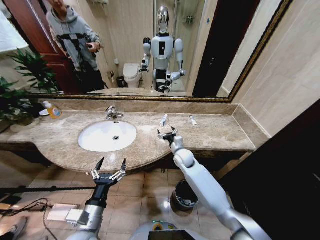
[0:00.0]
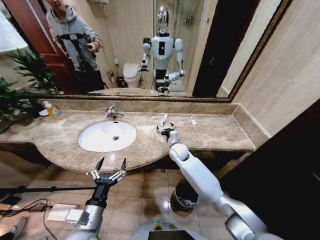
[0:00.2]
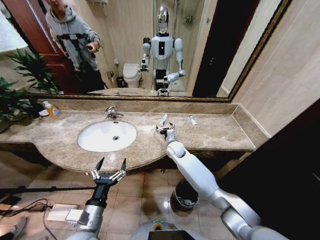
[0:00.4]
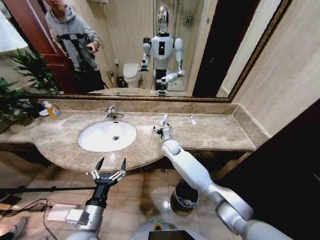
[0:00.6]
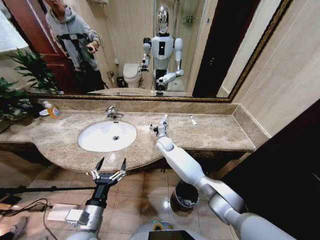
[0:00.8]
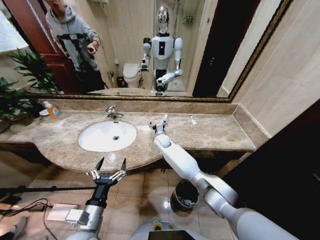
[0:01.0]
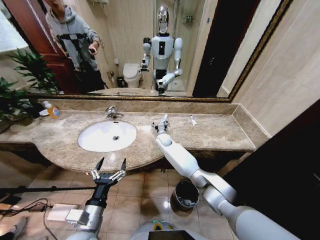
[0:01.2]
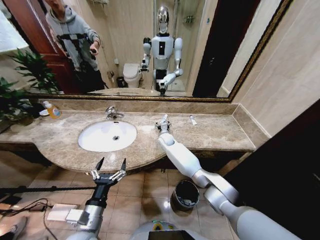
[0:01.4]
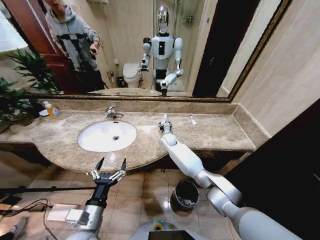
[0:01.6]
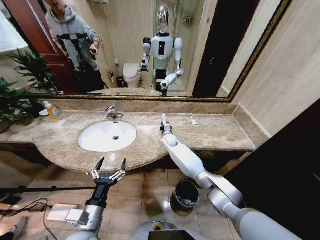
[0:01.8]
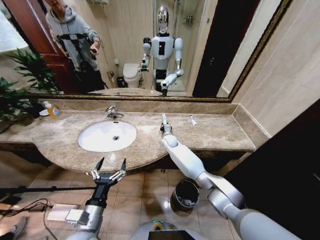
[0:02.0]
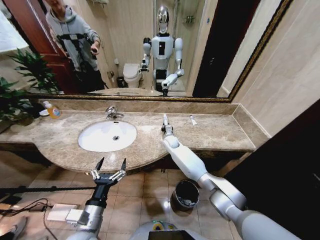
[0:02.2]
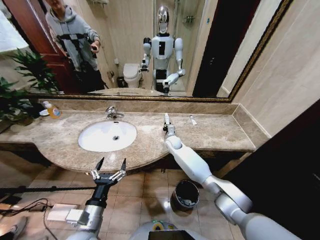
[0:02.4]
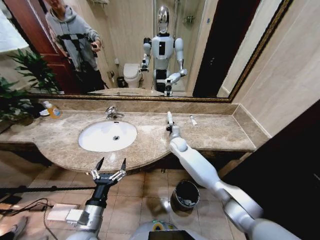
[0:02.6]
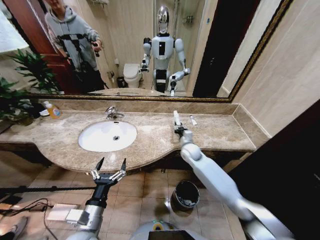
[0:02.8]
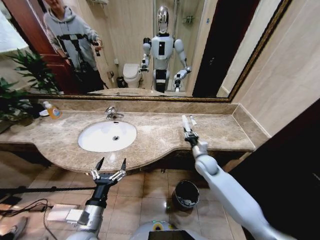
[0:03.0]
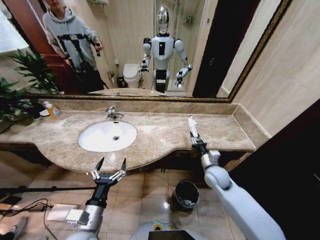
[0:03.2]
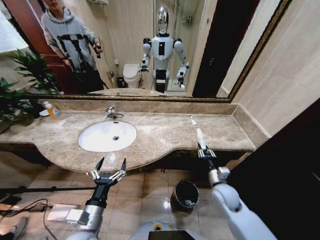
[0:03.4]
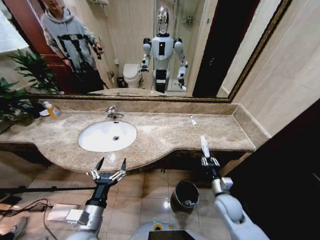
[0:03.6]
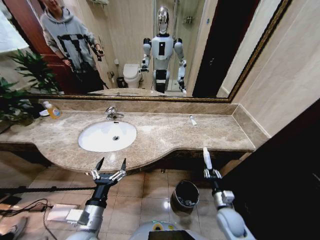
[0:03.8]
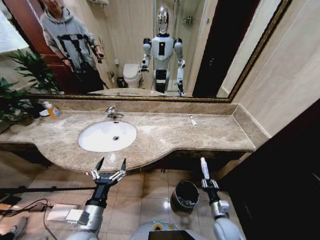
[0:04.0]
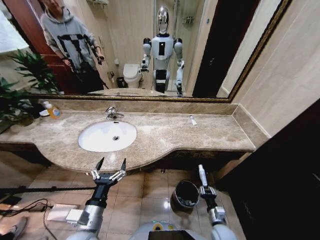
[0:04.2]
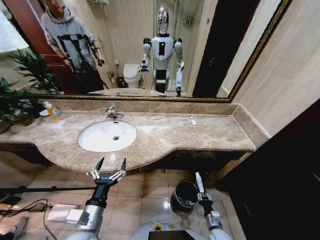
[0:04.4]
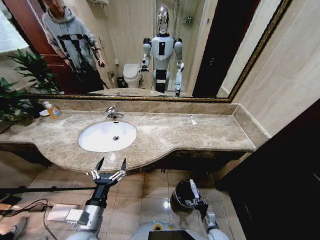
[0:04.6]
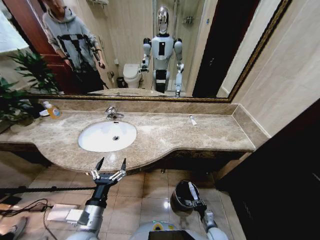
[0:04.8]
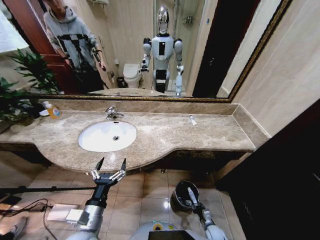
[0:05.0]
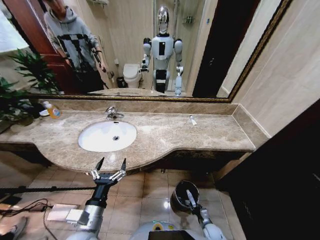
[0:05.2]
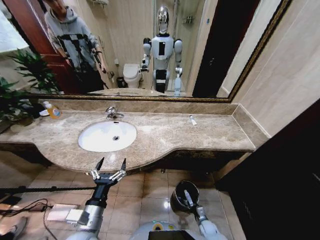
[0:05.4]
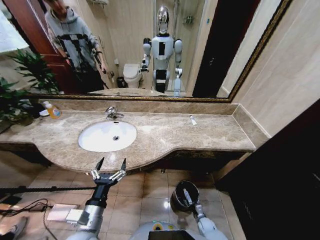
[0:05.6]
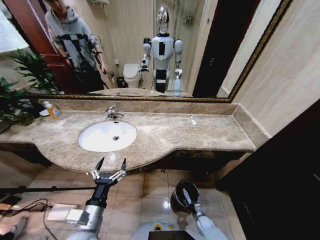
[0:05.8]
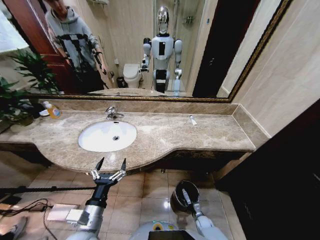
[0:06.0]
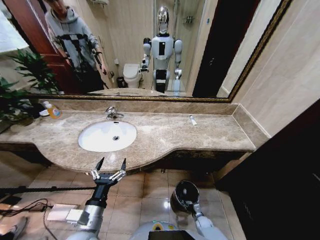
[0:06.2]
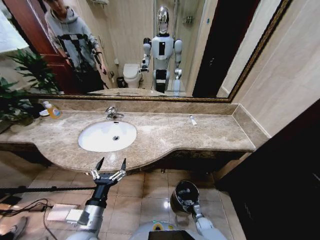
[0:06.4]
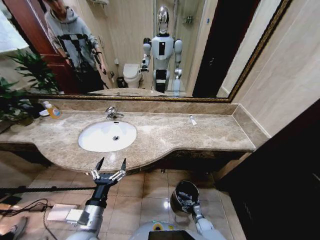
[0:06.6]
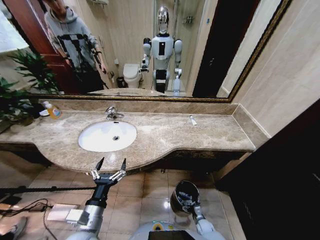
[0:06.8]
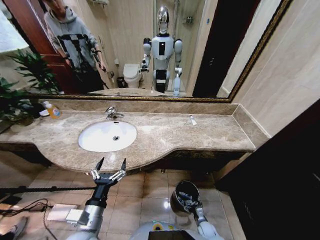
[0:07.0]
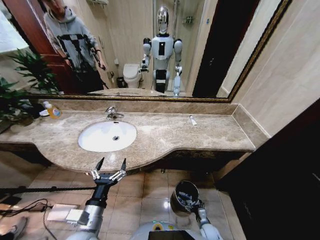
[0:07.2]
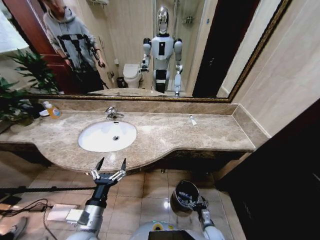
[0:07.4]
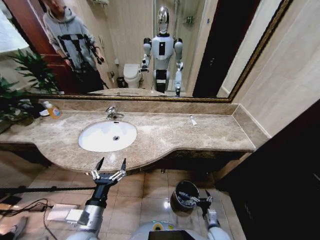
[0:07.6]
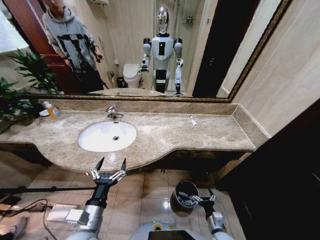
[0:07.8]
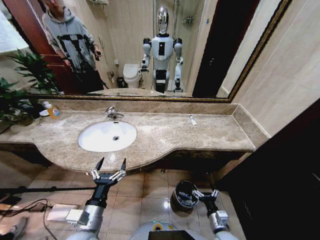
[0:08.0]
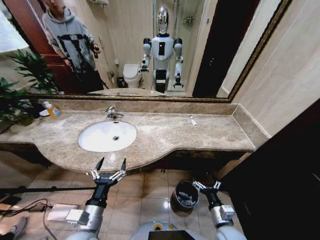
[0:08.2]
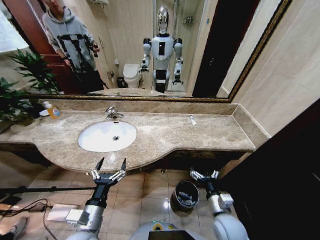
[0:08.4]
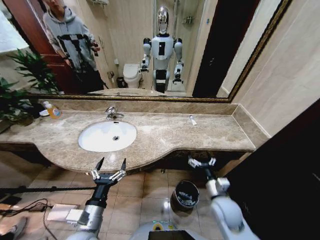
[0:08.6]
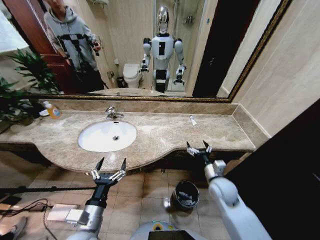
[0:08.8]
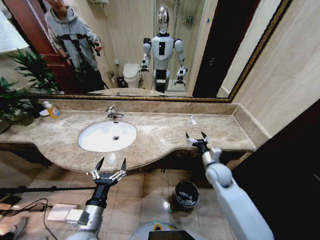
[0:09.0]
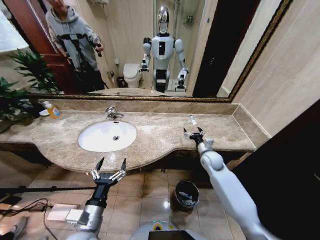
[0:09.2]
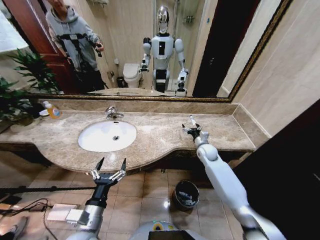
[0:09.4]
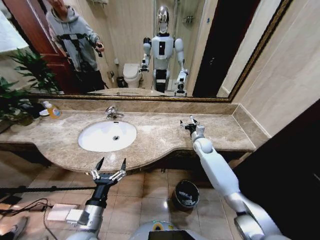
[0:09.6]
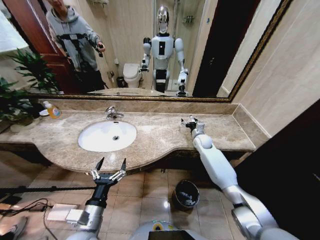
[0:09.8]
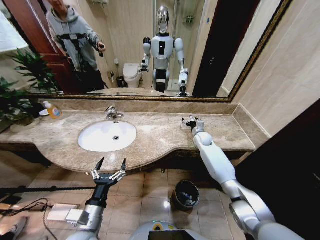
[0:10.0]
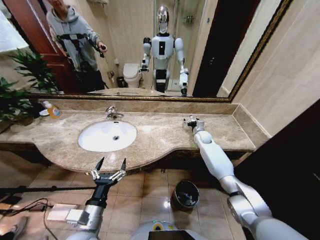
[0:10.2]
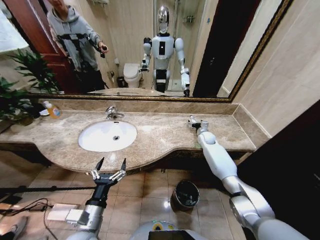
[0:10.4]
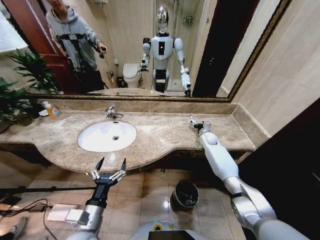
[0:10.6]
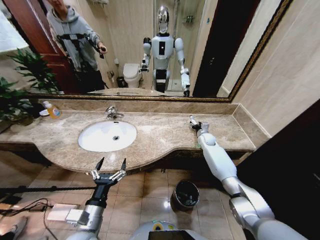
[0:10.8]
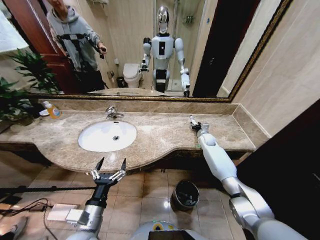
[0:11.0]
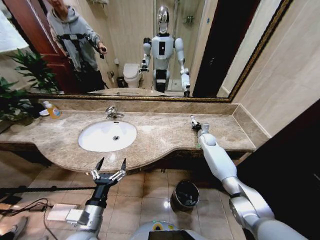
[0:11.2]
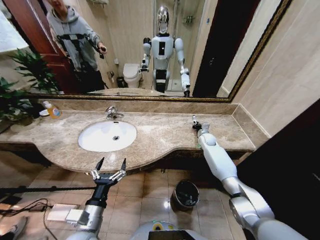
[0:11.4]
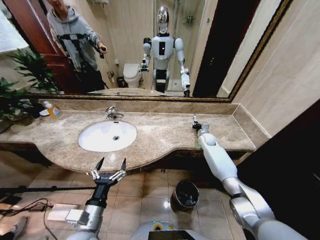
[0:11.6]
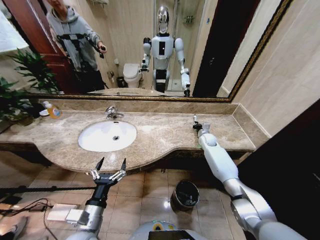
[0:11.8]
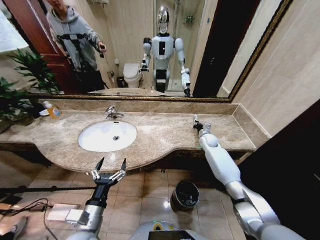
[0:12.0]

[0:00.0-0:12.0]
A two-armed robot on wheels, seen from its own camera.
Task of the whole recording: Pick up the trash from the sink and place it in the trash bin.
0.0 to 1.6 s: The right gripper moves forward and to the left, approximately 15 cm.
1.6 to 3.0 s: The right gripper heads backward and to the right, covering roughly 25 cm, and closes up.
3.0 to 4.4 s: The right gripper shifts some 35 cm downward and backward.
4.4 to 6.0 s: The right gripper moves downward and forward, roughly 15 cm.
6.0 to 7.6 s: The right gripper travels upward and backward by approximately 15 cm, and opens up.
7.6 to 9.0 s: The right gripper goes some 30 cm upward and forward.
9.0 to 10.4 s: The right gripper shifts about 25 cm forward.
10.4 to 12.0 s: The right gripper closes its fingers.

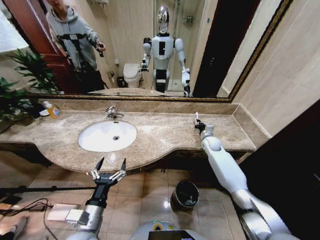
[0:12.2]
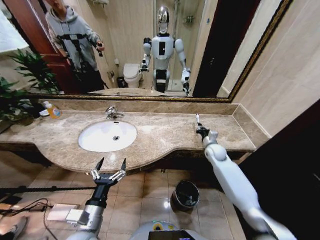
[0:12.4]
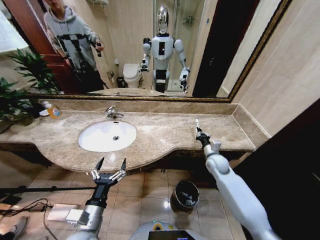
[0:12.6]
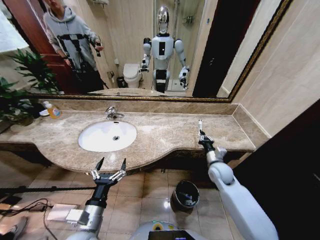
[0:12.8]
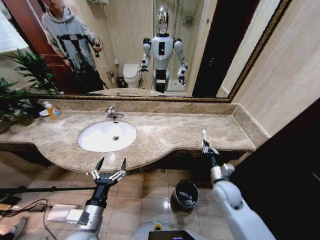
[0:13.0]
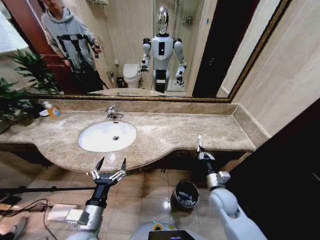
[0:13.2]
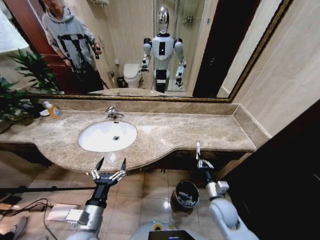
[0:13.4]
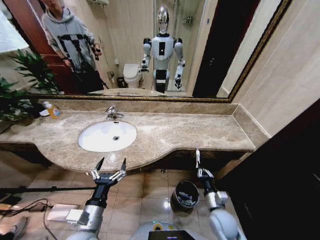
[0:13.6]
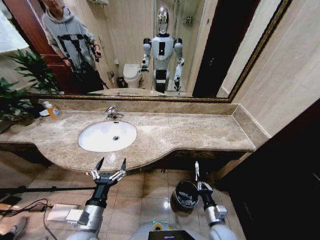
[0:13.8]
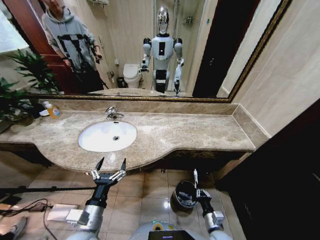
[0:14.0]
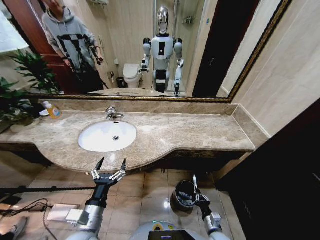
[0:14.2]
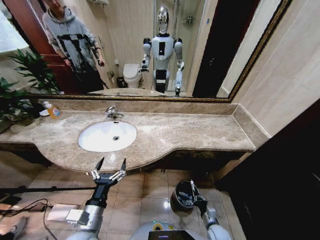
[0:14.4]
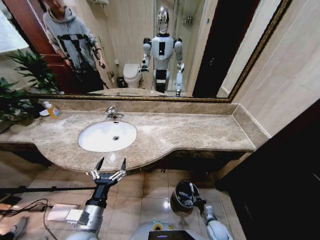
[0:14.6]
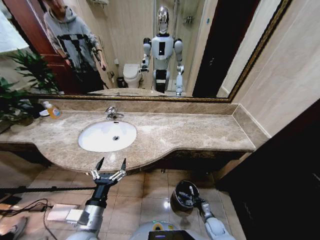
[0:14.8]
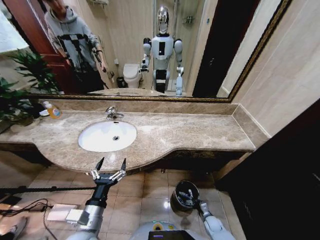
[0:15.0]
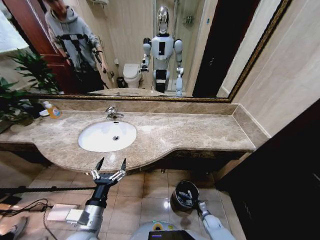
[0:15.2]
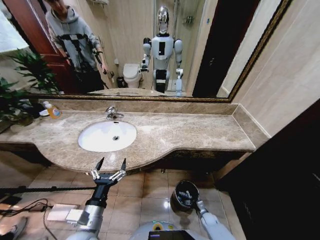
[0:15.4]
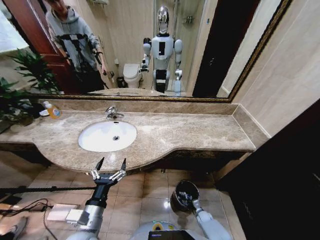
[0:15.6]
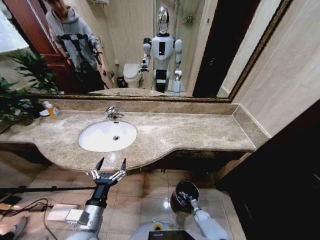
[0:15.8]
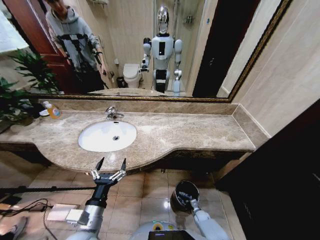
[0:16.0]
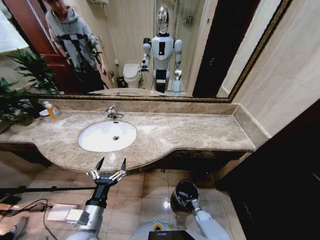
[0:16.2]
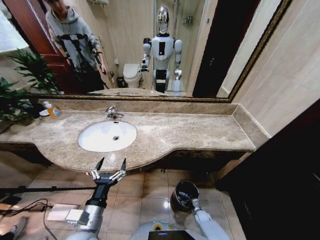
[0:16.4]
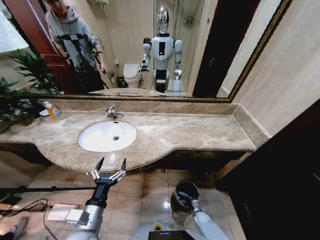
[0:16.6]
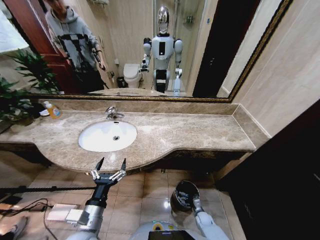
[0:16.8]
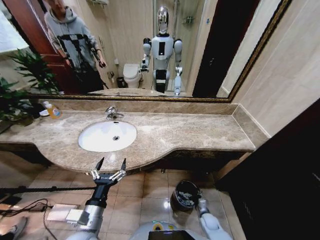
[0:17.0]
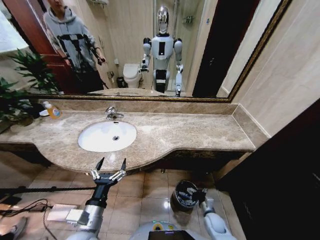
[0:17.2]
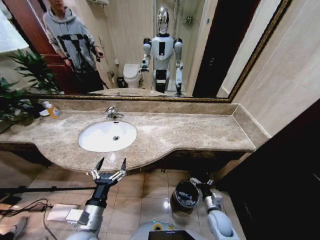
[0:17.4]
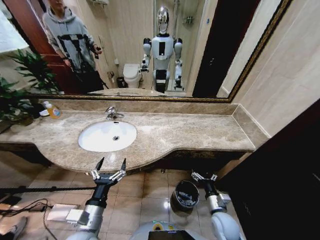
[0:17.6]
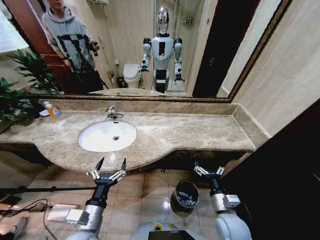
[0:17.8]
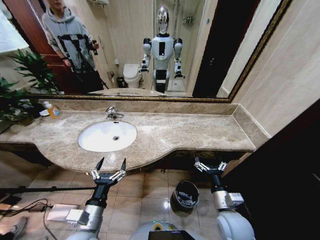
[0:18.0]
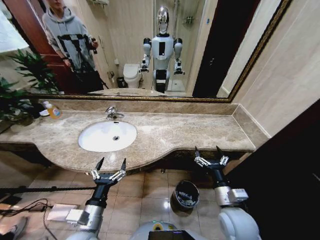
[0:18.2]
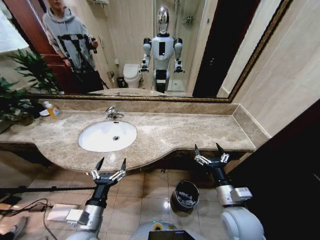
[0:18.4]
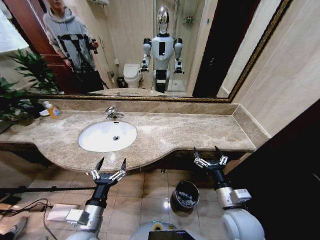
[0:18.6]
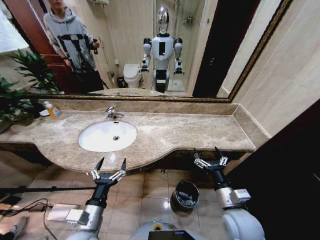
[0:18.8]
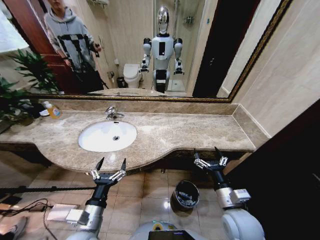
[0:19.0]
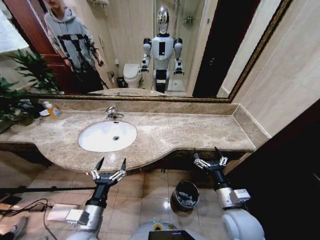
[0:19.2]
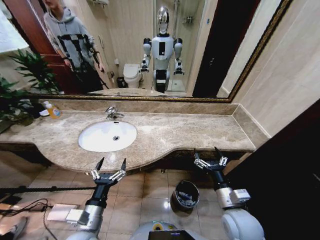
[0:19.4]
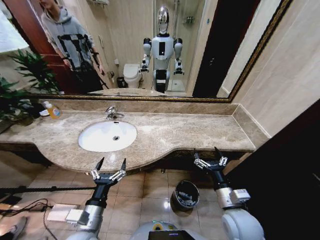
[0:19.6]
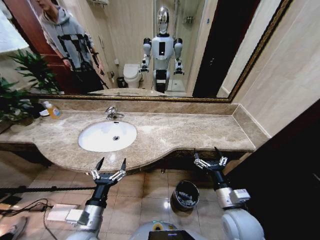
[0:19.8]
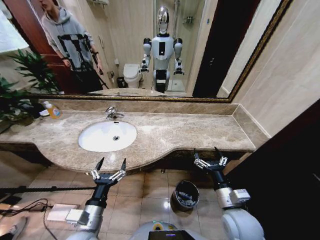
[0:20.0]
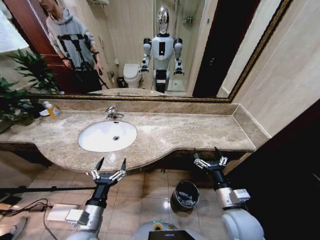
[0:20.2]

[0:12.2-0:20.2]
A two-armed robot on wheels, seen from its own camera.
Task of the whole recording: Pick up the trash from the sink and place it in the trash bin.
12.2 to 13.8 s: The right gripper heads backward, covering roughly 35 cm.
13.8 to 15.4 s: The right gripper goes roughly 25 cm downward.
15.4 to 17.0 s: The right gripper changes place by roughly 5 cm, and opens up.
17.0 to 18.6 s: The right gripper travels upward by approximately 35 cm.
18.6 to 20.2 s: Neither gripper changes place.

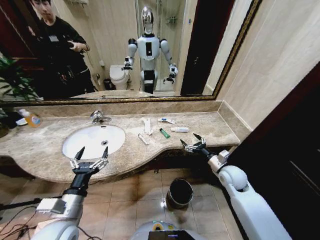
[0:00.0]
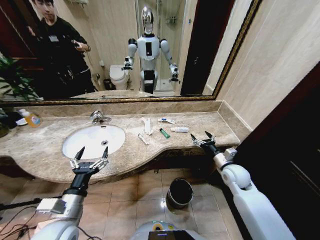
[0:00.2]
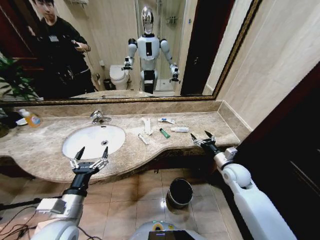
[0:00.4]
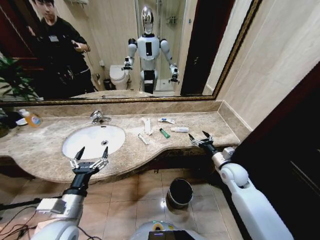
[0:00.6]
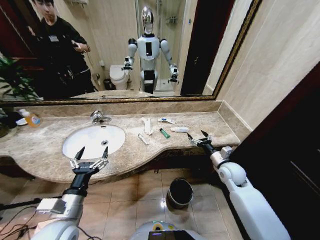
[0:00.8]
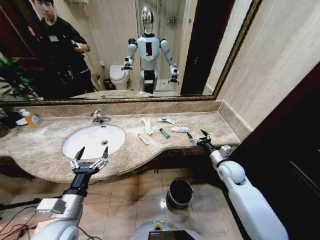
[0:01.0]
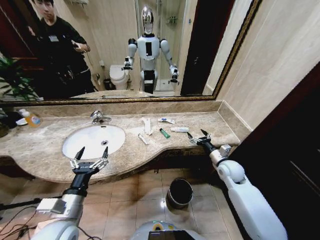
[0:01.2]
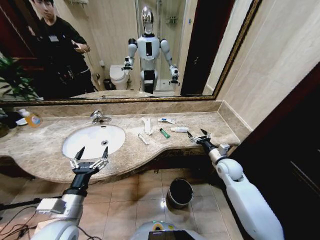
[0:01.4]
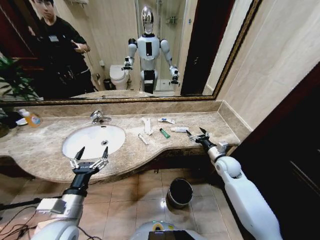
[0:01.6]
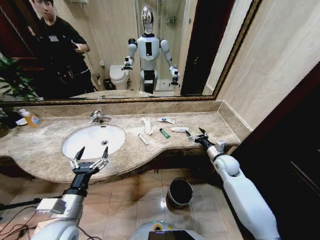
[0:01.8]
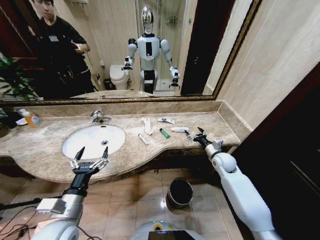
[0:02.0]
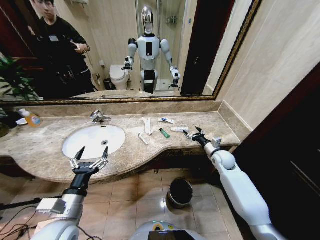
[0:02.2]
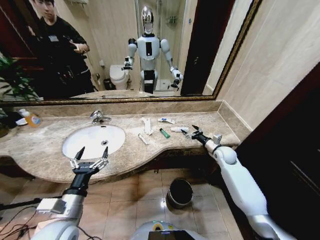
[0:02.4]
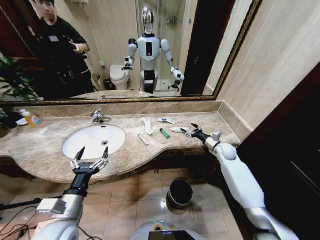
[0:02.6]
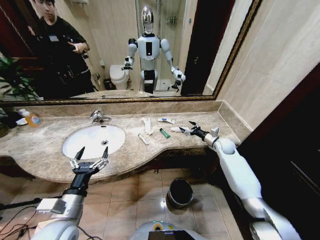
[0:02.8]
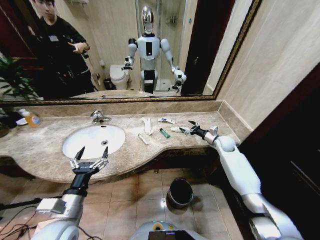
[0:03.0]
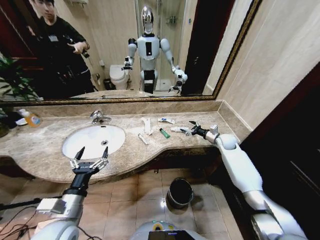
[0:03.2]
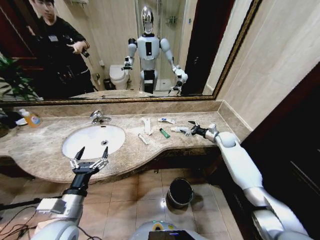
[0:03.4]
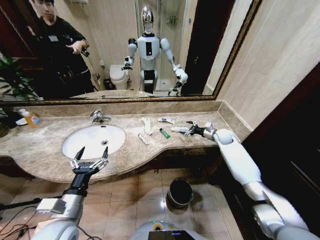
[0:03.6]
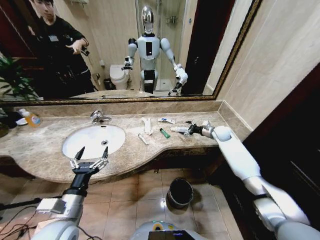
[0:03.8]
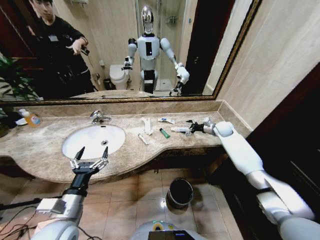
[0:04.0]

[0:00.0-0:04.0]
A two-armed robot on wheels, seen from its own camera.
Task of the whole recording: Pick up the trash from the sink and place it in the trash bin.
1.4 to 2.6 s: The right gripper shifts some 10 cm forward.
2.6 to 4.0 s: The right gripper heads forward and upward, covering about 10 cm.
